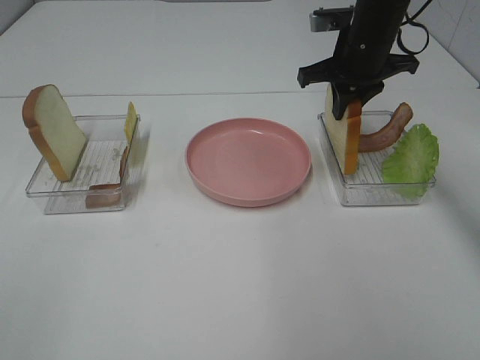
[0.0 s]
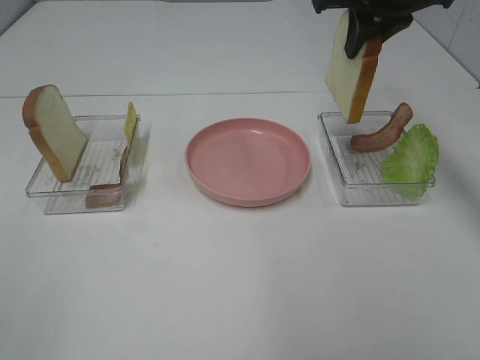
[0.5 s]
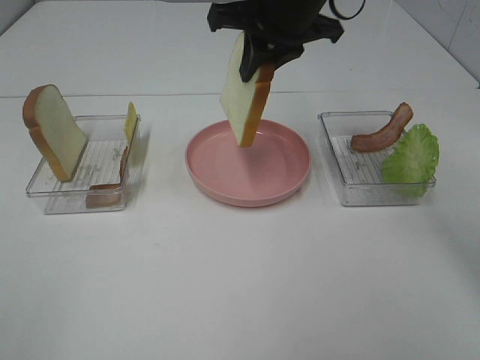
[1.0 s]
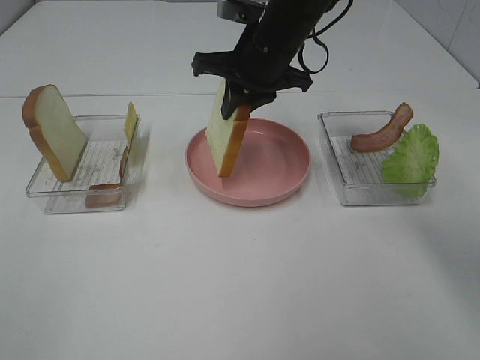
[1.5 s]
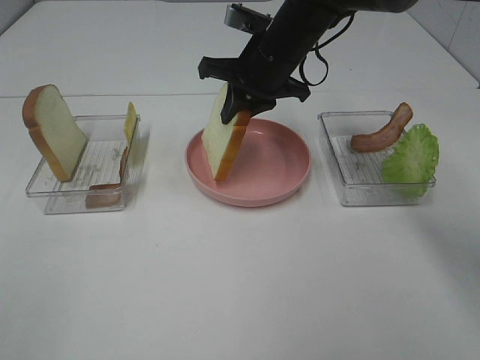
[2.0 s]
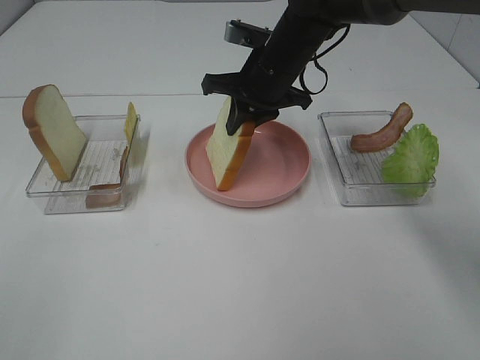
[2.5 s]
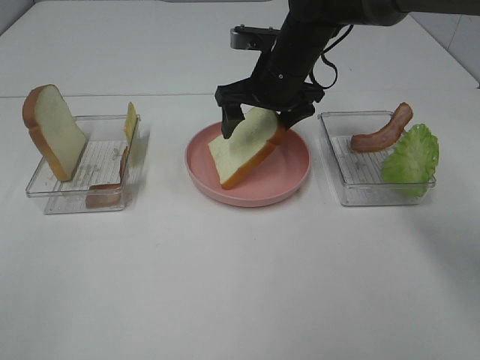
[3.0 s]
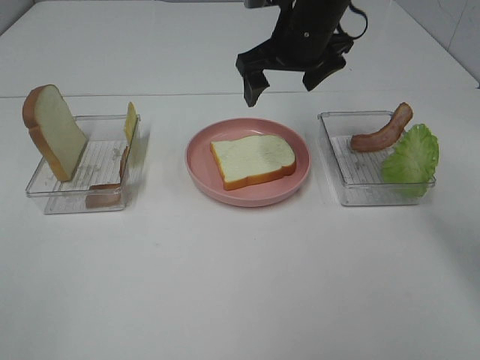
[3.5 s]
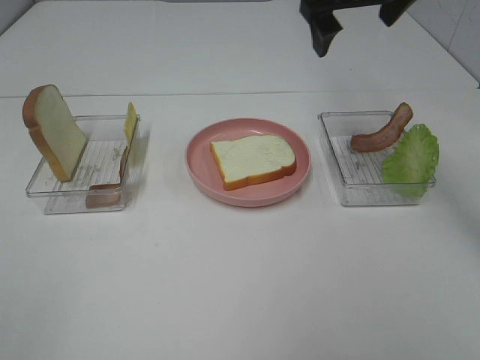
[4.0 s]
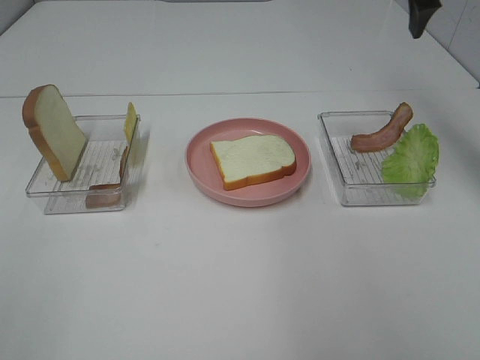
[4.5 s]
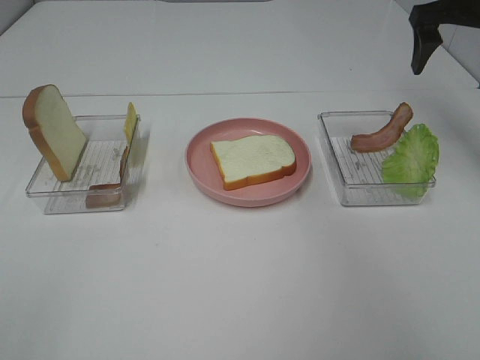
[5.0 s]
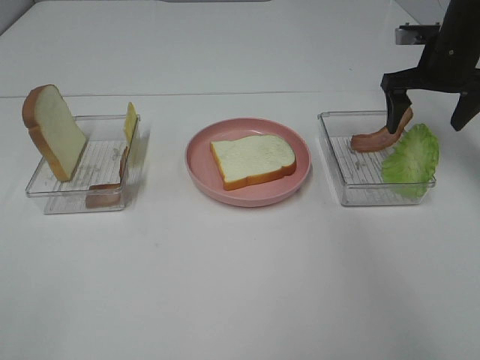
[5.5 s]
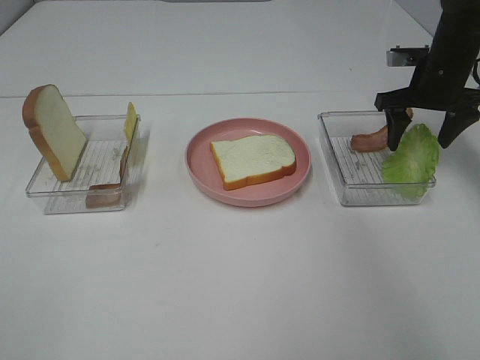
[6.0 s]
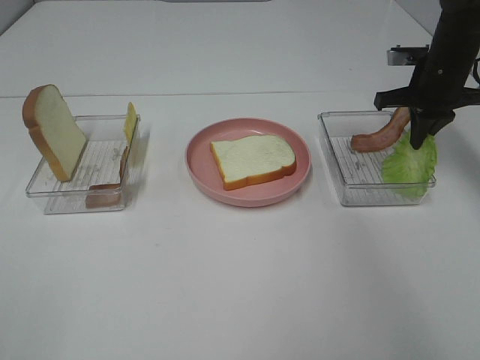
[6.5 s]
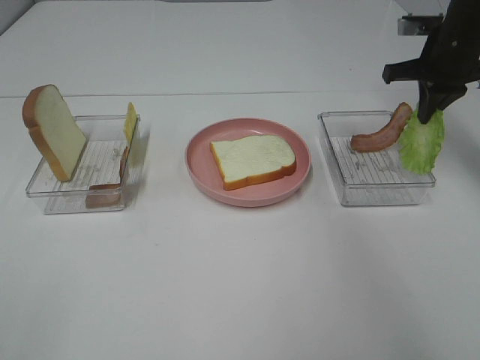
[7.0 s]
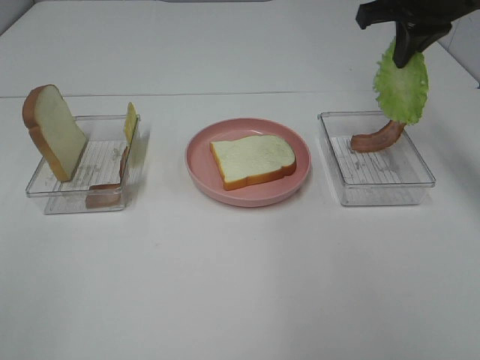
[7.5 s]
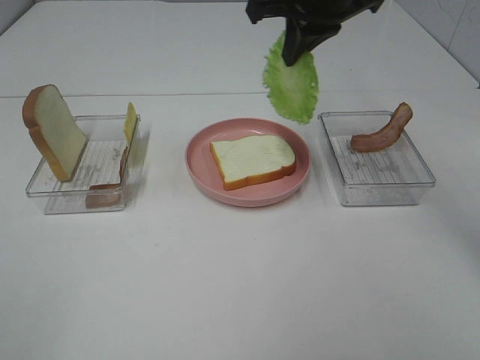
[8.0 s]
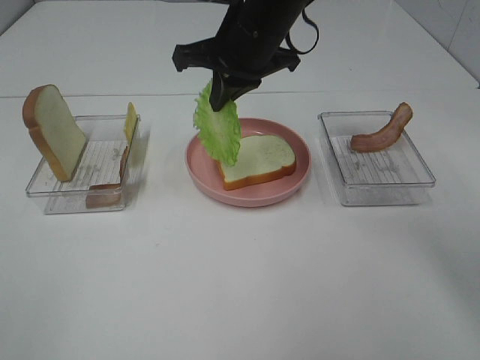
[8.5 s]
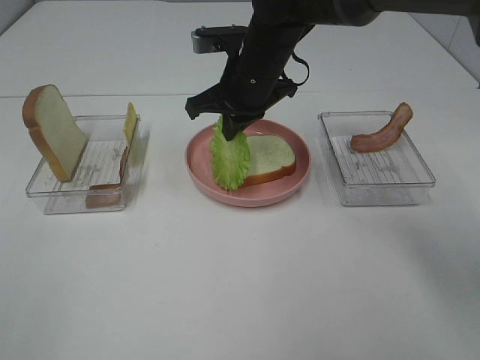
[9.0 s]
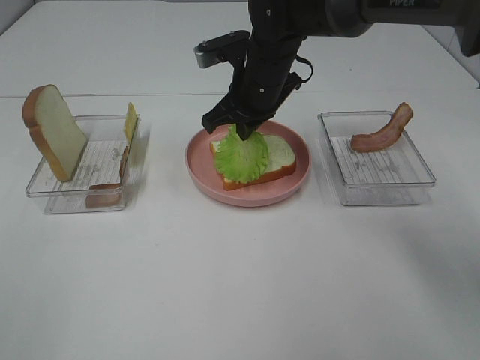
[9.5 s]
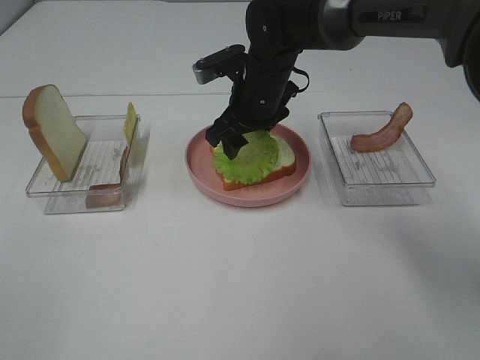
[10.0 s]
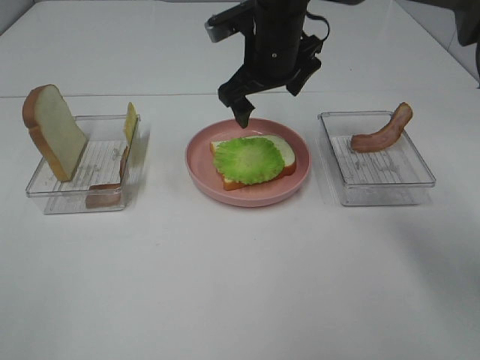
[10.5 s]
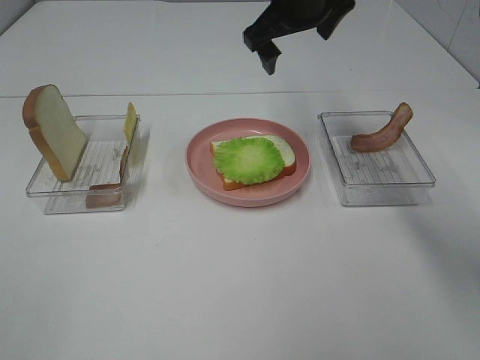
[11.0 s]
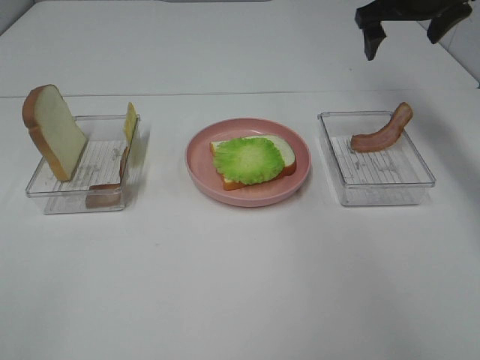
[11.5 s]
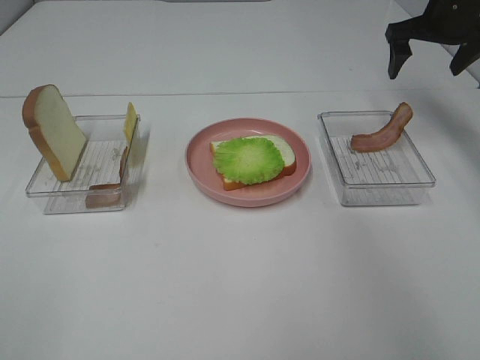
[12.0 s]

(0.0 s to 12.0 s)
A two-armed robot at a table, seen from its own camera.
Task of the whole recording: Make sandwiches.
Step, 0.0 s - 3.0 s: Right hand:place the bread slice on the plate.
Step, 3.5 s - 6.5 s: Right hand:grab the lettuce slice.
Step, 7.0 s - 10.5 s: Right hand:place the lettuce slice on the bread slice.
0.0 s - 2.0 s: The right gripper shifts some 10 cm to the left.
2.0 s - 4.0 s: The right gripper heads upward and to the right, covering approximately 15 cm, and opens.
4.0 s - 6.0 s: The right gripper shifts some 20 cm downward and to the right.
6.0 s - 8.0 s: The right gripper is displaced to the left and upward by approximately 25 cm, and closes its fingers.
8.0 s - 10.0 s: The right gripper shifts about 15 cm downward, and opens its fingers.
10.0 s - 12.0 s: The right gripper travels to the right by some 25 cm.

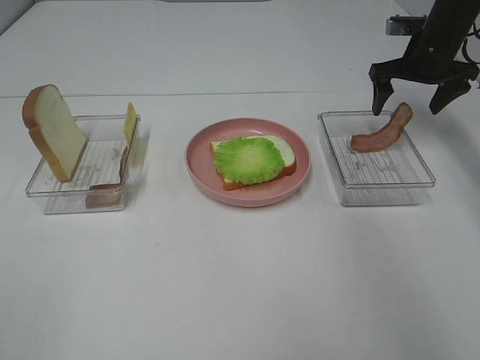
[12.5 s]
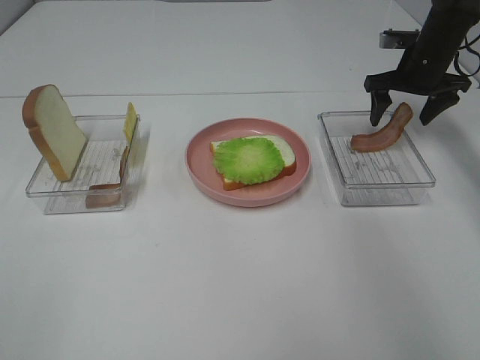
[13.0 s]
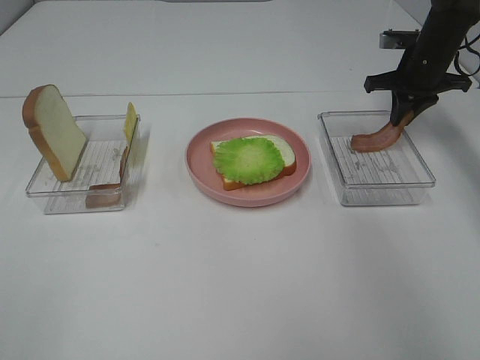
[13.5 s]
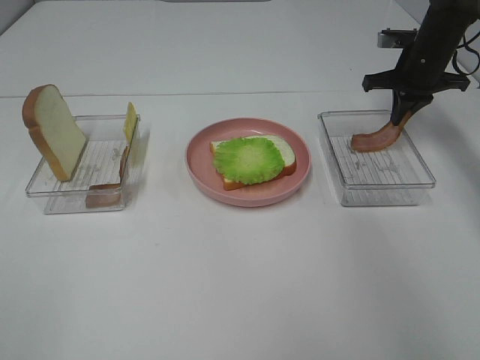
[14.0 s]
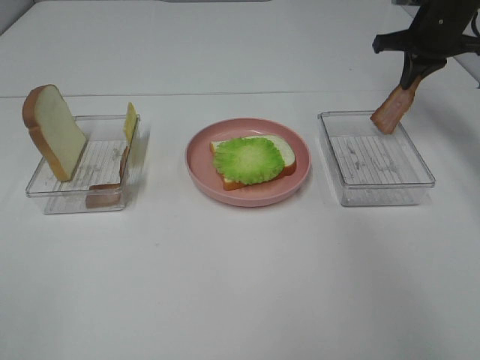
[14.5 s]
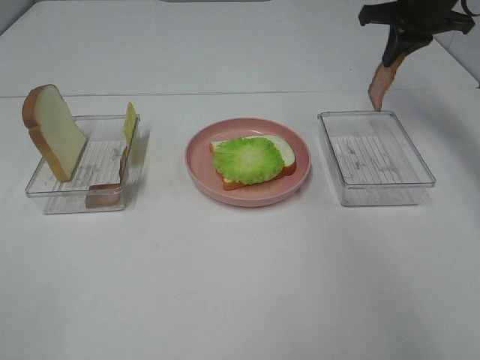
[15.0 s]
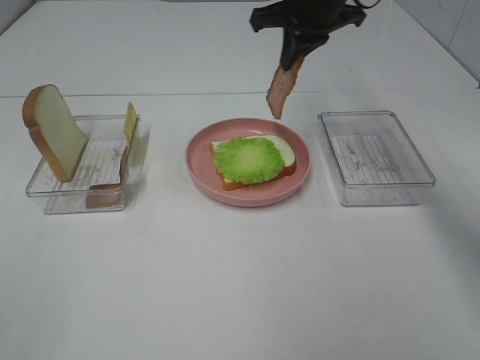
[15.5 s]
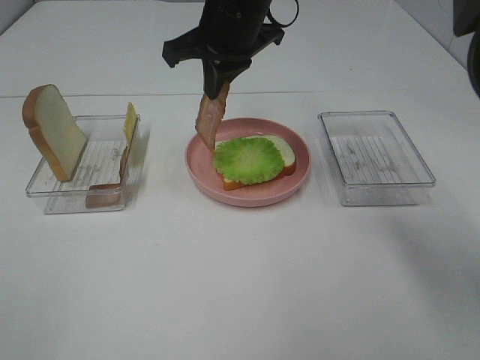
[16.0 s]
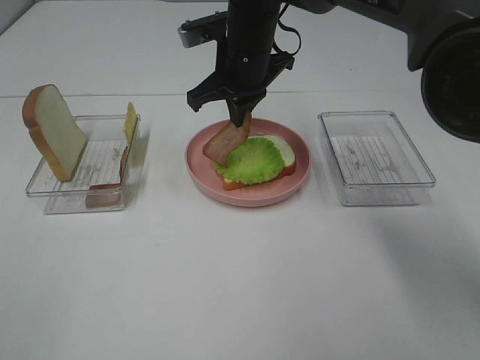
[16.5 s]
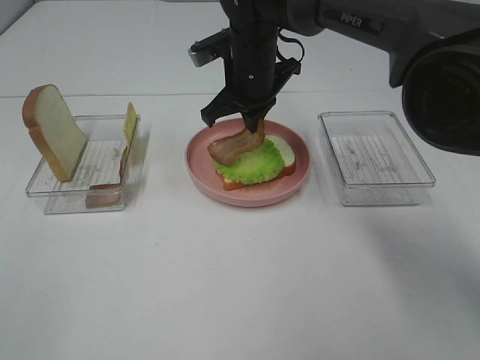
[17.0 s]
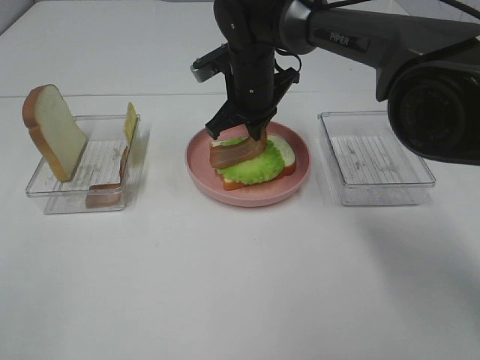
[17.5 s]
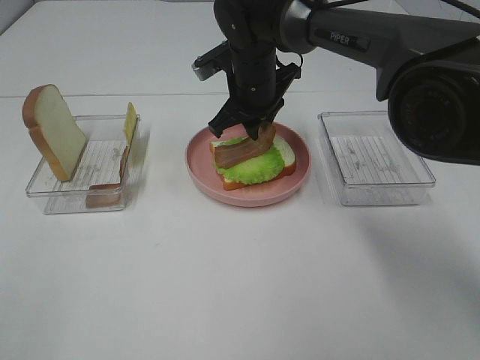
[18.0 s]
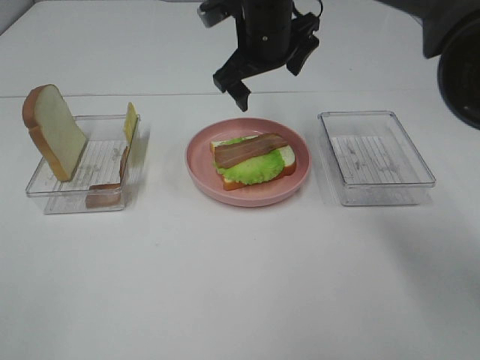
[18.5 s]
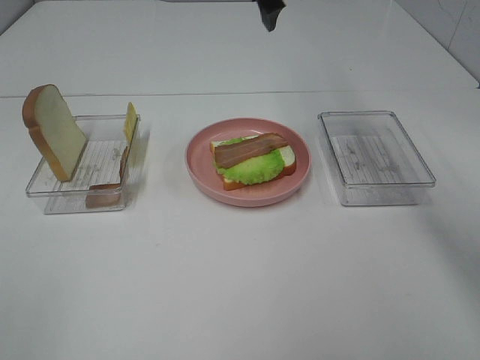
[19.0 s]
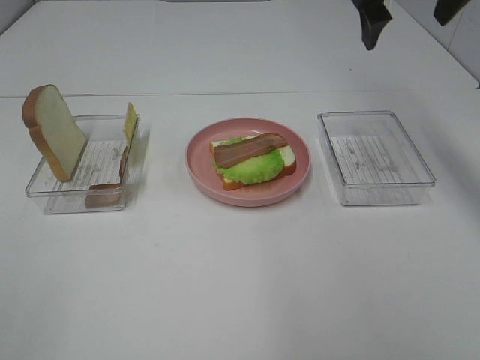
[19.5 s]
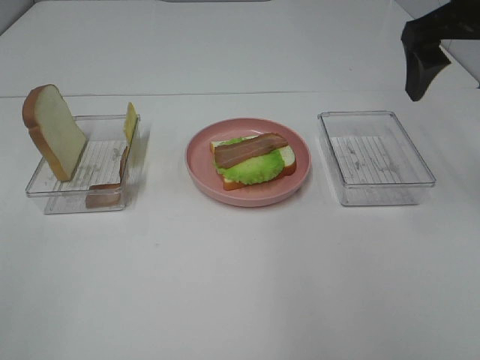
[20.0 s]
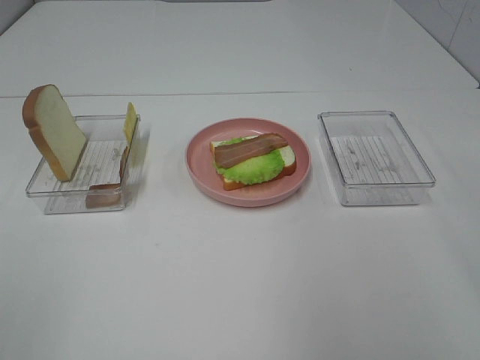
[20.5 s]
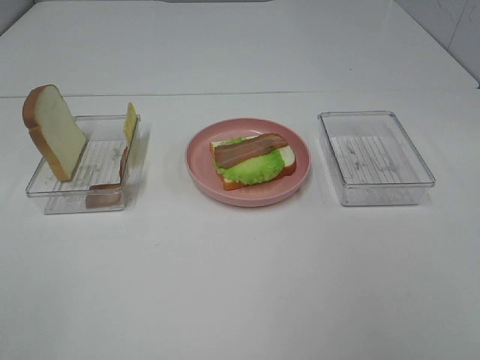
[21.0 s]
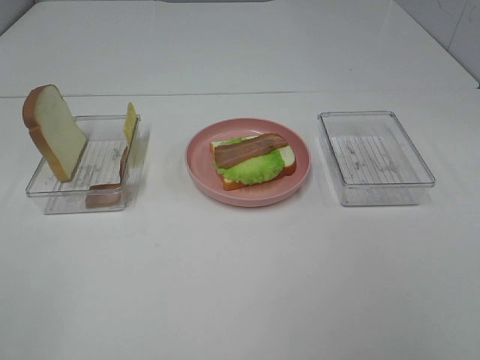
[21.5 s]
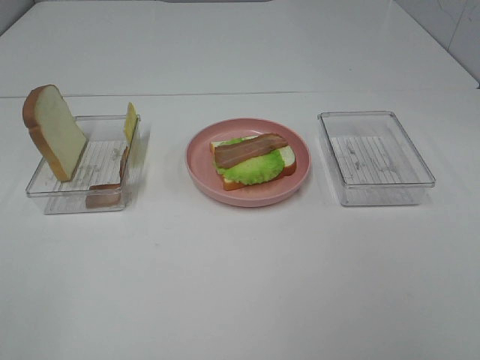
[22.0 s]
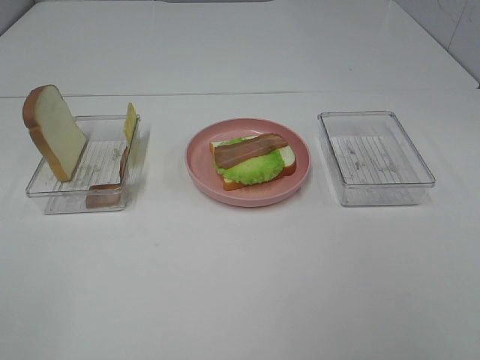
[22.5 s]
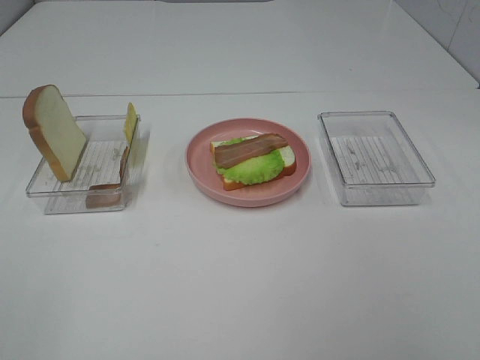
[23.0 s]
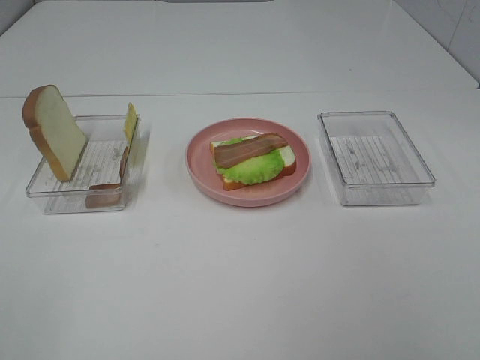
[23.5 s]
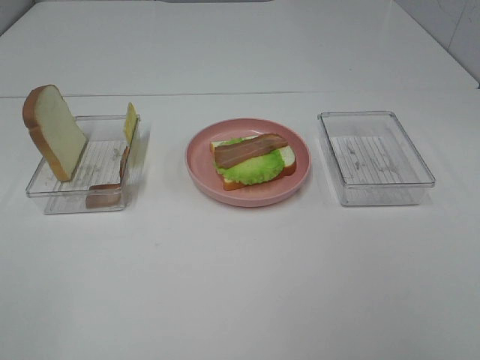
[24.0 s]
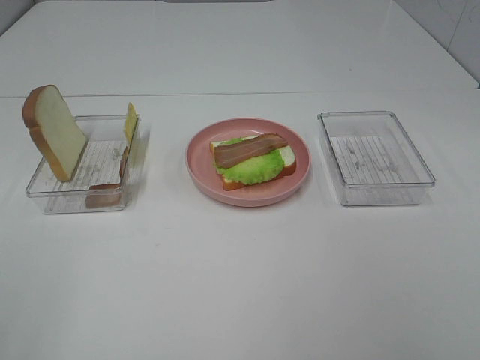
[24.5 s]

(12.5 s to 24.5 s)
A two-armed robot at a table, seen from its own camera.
Task of the whole recording: Make sandwiches.
Step, 14.5 s - 18.0 s: Right hand:place bacon on lettuce slice.
12.5 s - 14.5 s: The right gripper closes its fingers.
14.5 s - 16.5 s: The right gripper travels to the left by some 30 cm.
16.5 s - 18.5 s: The right gripper opens up.
18.5 s - 20.5 s: The right gripper heads backward, to the right and upward, covering about 35 cm.

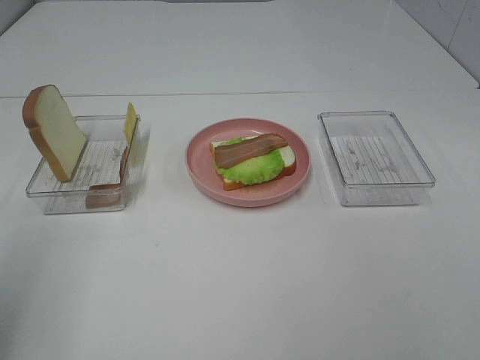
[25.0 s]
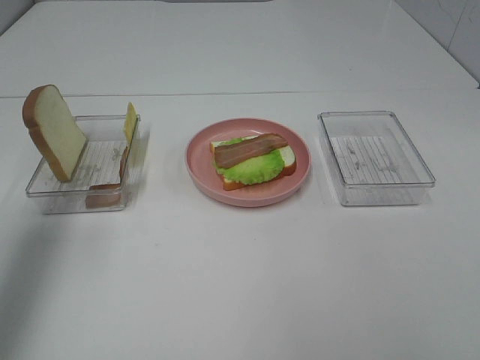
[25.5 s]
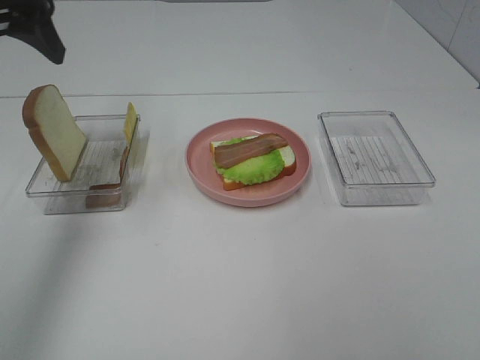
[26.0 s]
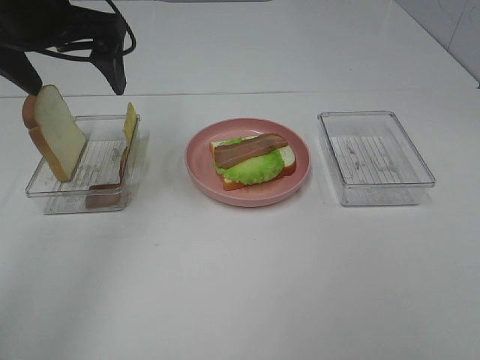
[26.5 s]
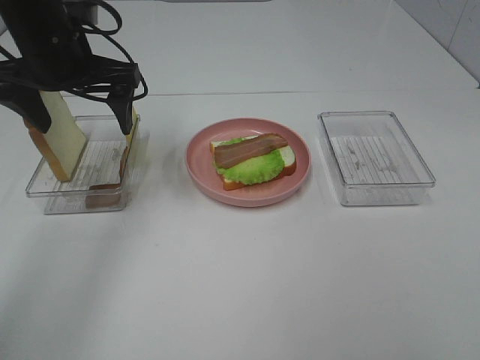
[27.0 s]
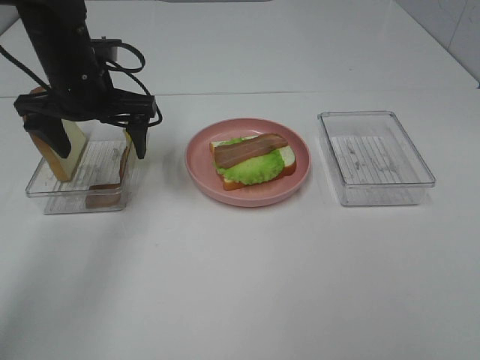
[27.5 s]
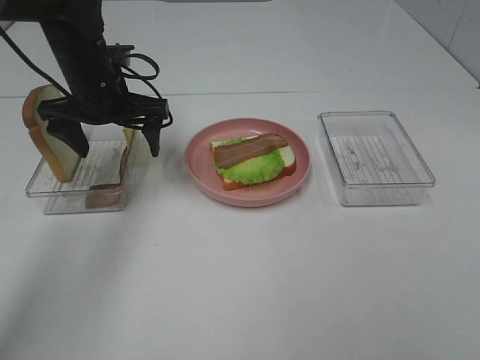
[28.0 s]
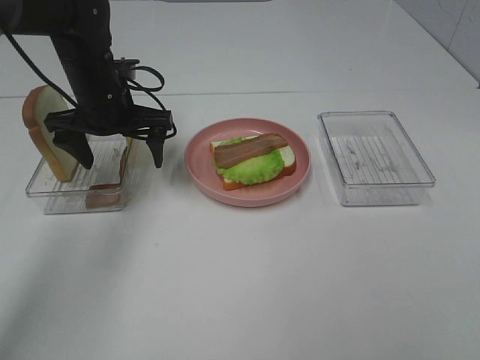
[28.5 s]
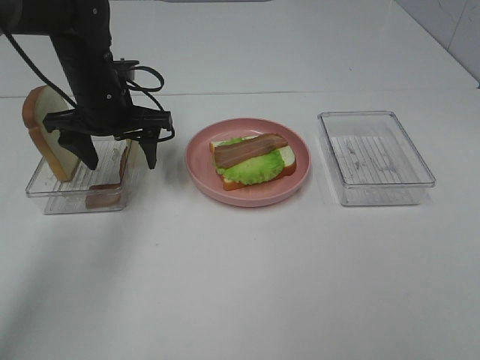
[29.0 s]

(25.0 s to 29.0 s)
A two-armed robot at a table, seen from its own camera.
Task of the whole recording: Make sandwiches.
25.0 s - 27.0 s: The left gripper goes some 30 cm forward and to the right.
27.0 s - 29.0 s: The left gripper heads downward, covering approximately 10 cm.
